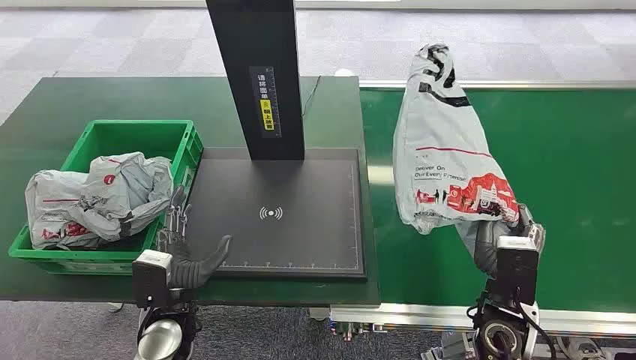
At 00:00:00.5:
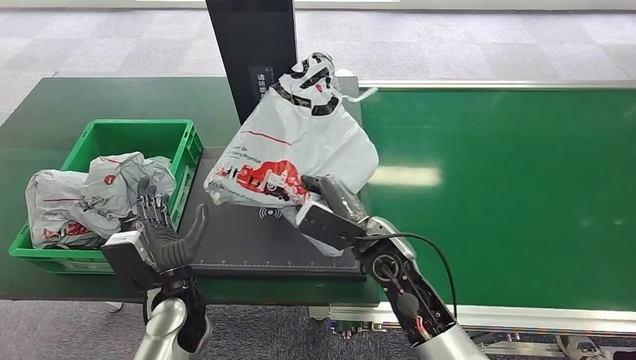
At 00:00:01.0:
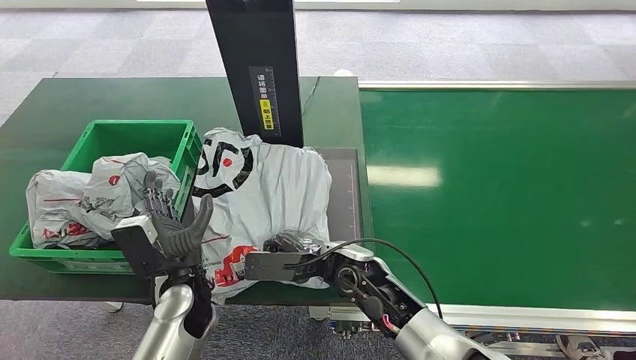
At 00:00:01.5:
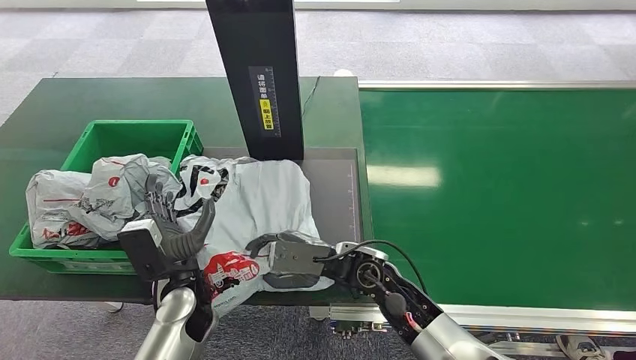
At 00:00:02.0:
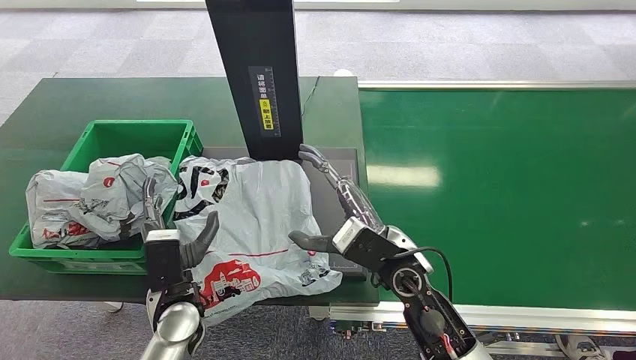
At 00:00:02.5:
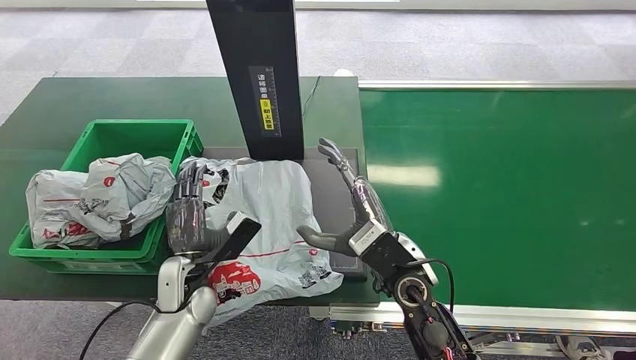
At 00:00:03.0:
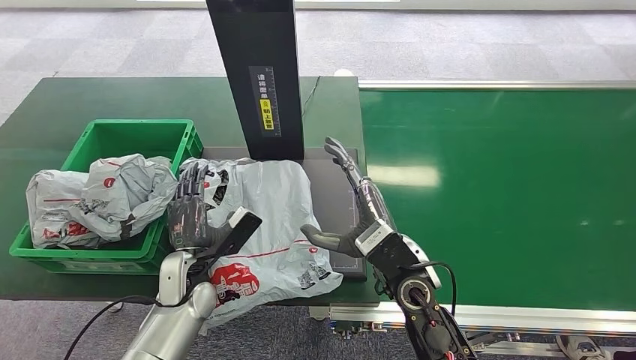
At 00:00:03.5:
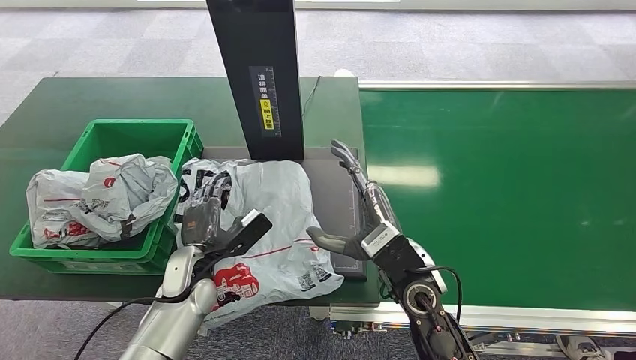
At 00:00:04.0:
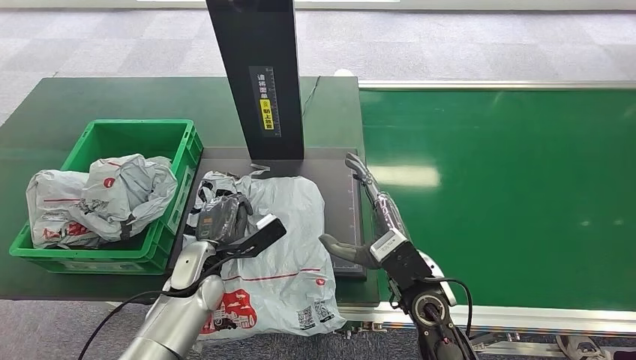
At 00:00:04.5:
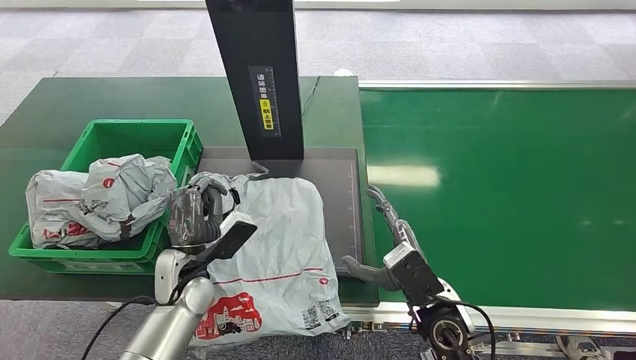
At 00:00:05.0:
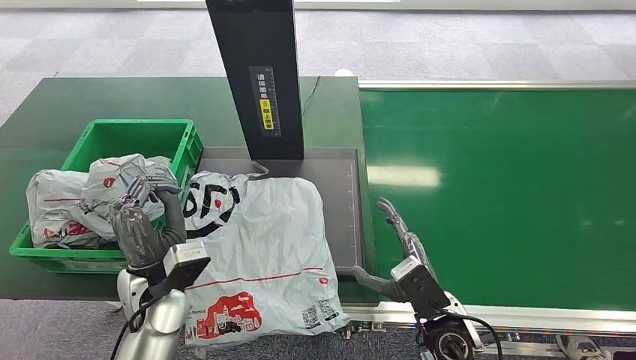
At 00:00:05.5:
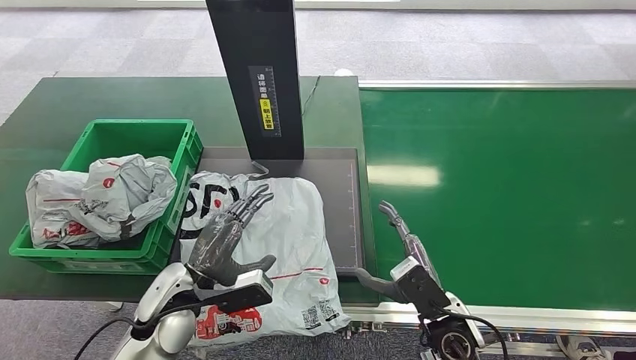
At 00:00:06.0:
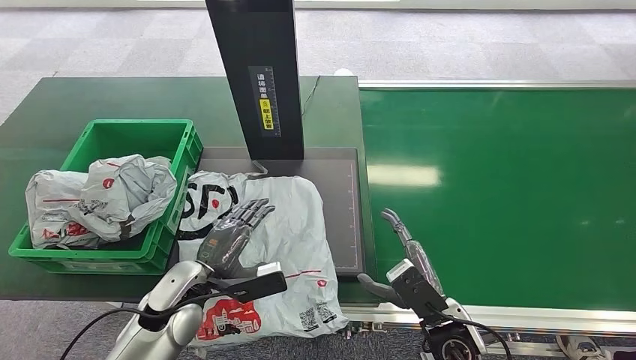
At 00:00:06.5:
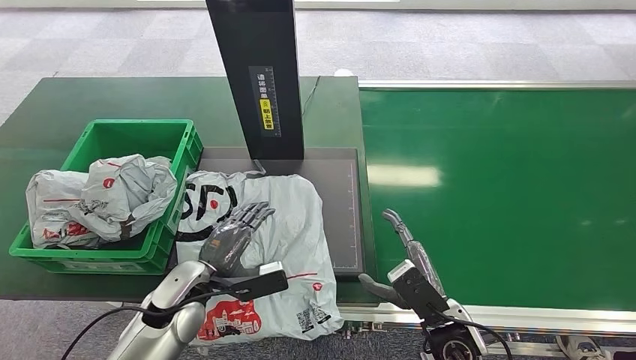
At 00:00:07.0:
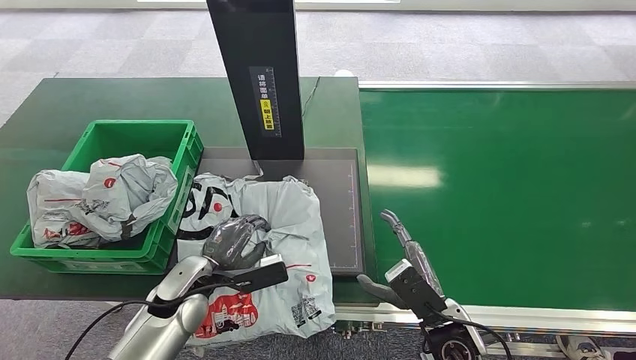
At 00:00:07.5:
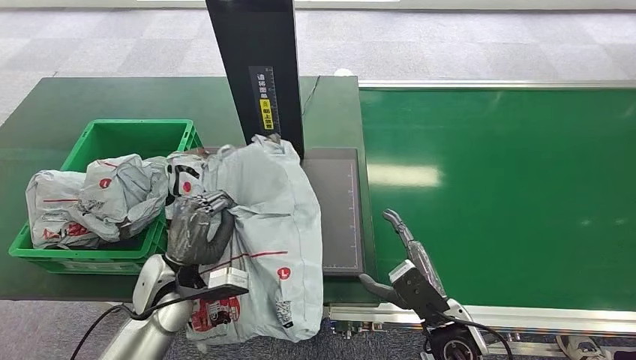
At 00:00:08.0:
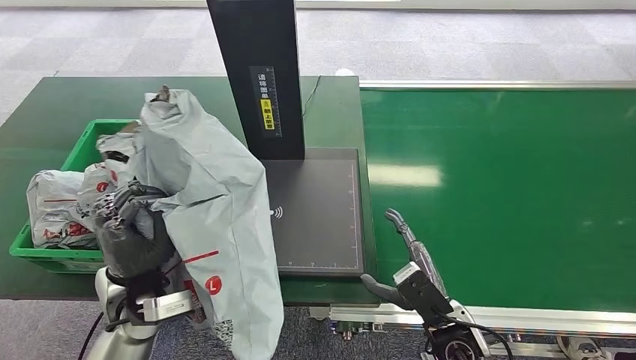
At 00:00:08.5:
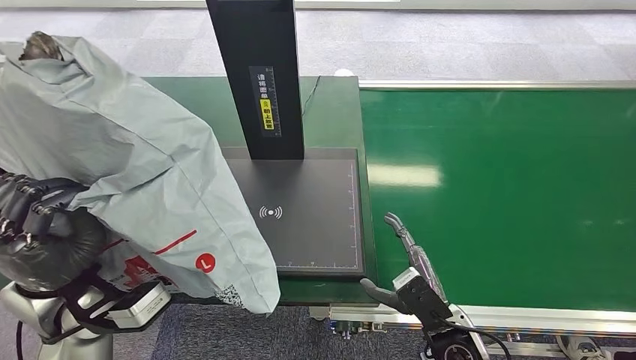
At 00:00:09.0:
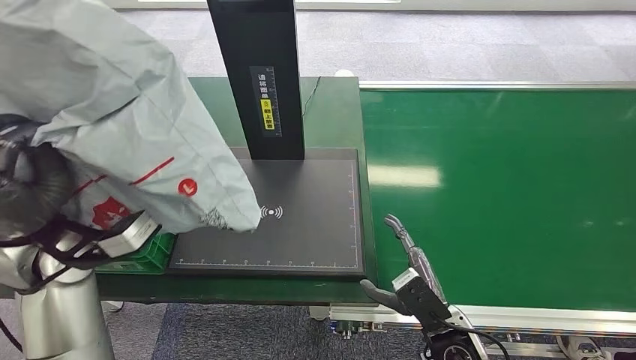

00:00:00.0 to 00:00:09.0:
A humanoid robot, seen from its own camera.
Task of the whole recording: Weigh the package on the weighing device and place it in the left basket.
00:00:02.0 to 00:00:04.5: The left hand changes place by roughly 5 cm, while the right hand goes some 10 cm backward, to the right and downward.
